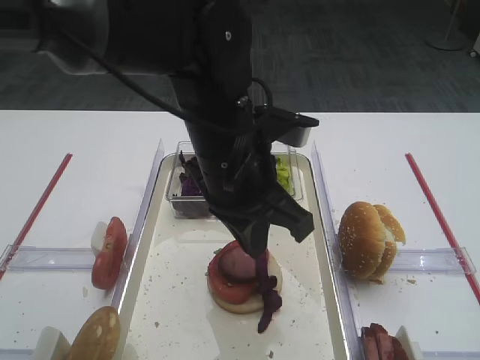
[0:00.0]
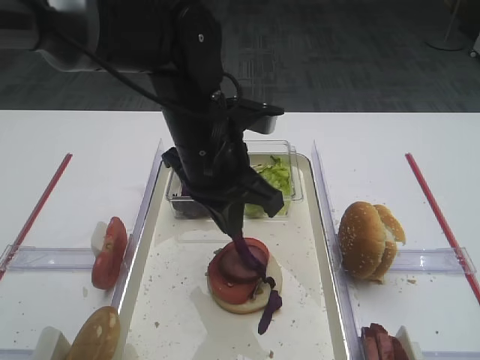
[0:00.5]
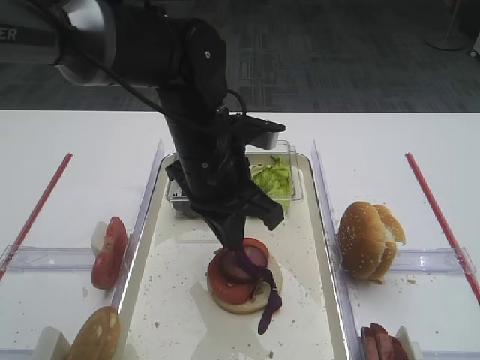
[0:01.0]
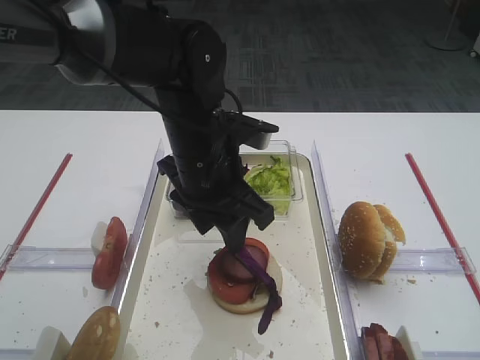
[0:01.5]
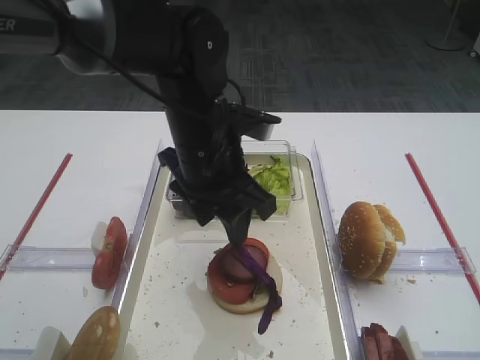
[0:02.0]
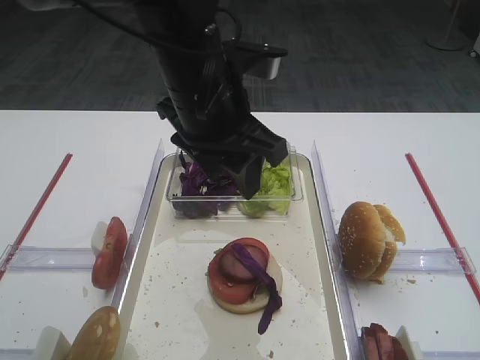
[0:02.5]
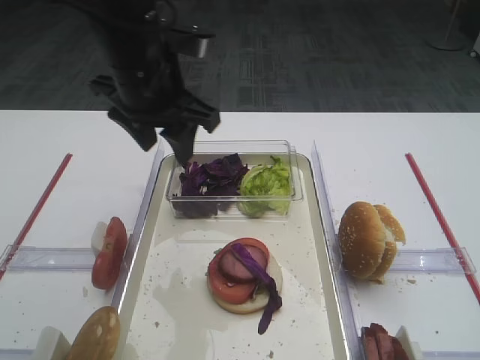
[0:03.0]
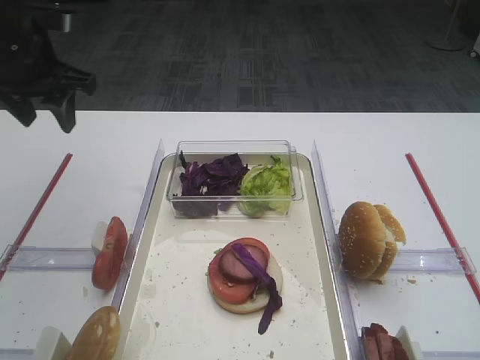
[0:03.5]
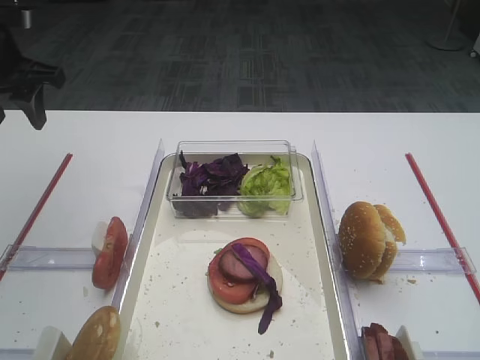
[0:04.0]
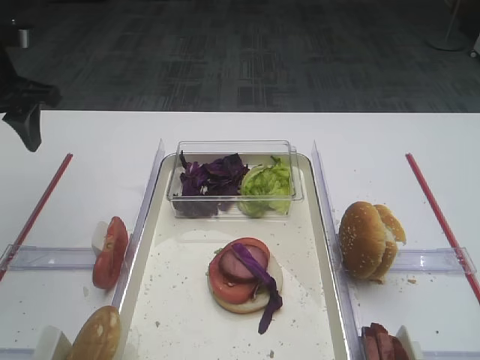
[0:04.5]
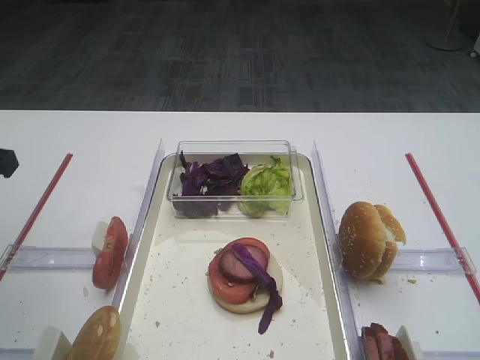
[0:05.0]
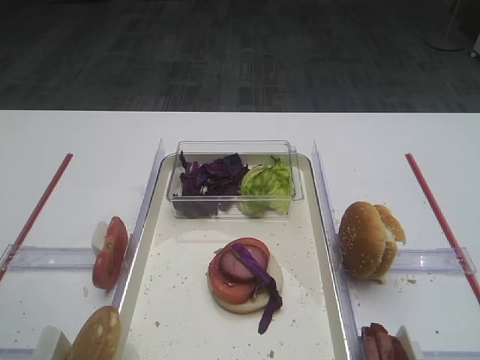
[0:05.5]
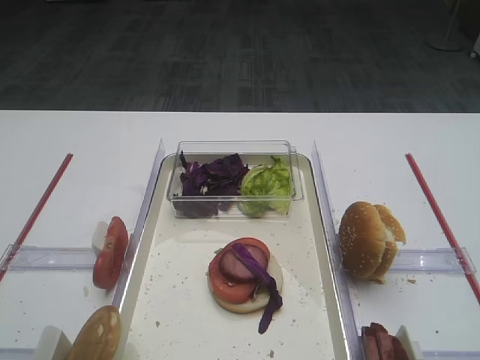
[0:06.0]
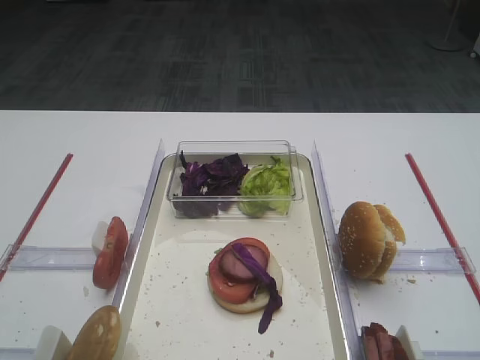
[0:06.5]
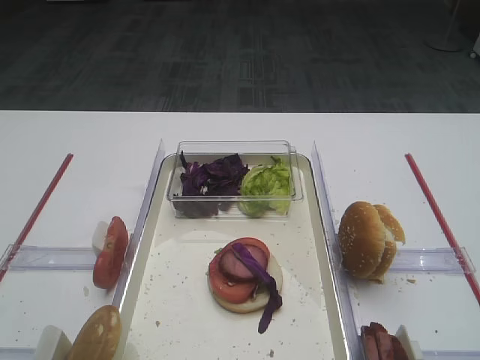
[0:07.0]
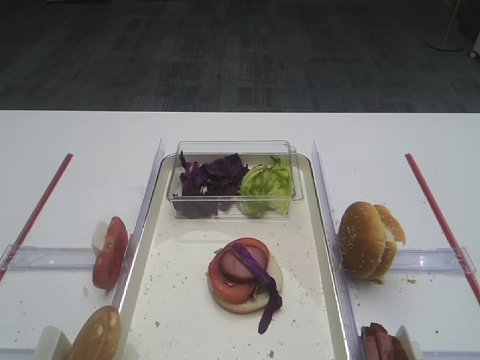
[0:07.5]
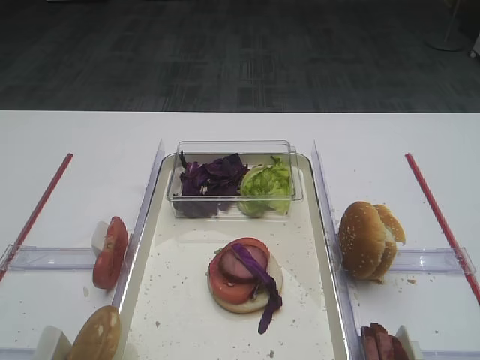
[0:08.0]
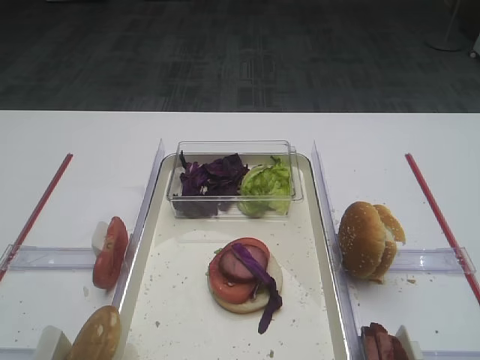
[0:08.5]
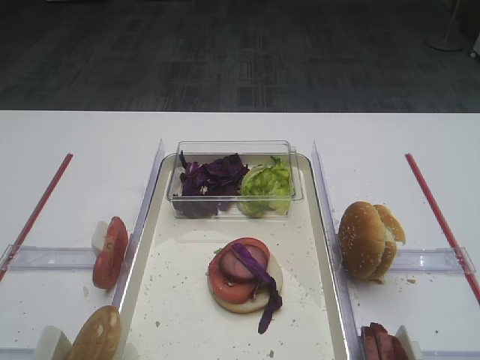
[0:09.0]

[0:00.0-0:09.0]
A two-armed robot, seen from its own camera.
Step, 0:00.0 to 0:02.0: Place the purple cabbage on the cutlet with the left gripper.
0:00.0 to 0:02.0: The left gripper shifts by roughly 5 cm, and opens up.
0:02.0 to 0:04.5: The left gripper moves to the left, about 25 cm.
0:04.5 to 0:07.0: The left gripper moves backward, approximately 40 cm.
0:07.0 to 0:09.0: The two grippers keep their place.

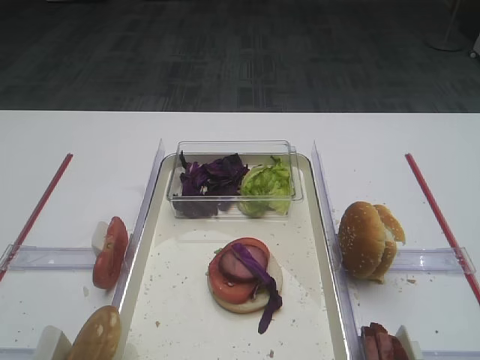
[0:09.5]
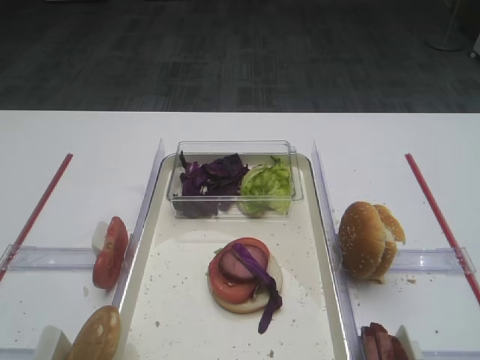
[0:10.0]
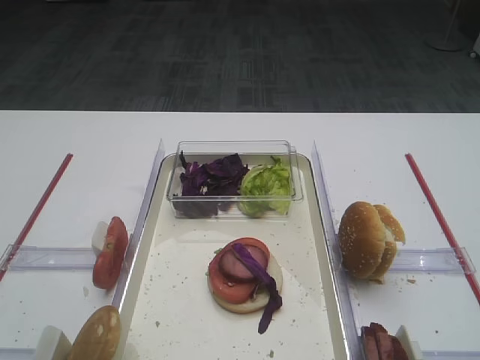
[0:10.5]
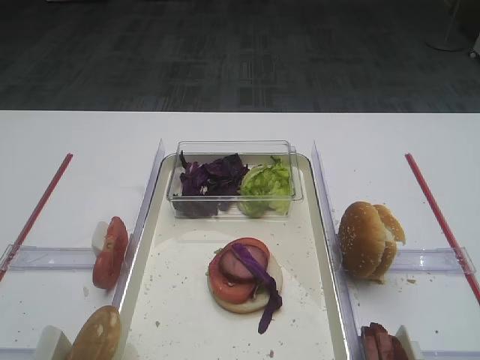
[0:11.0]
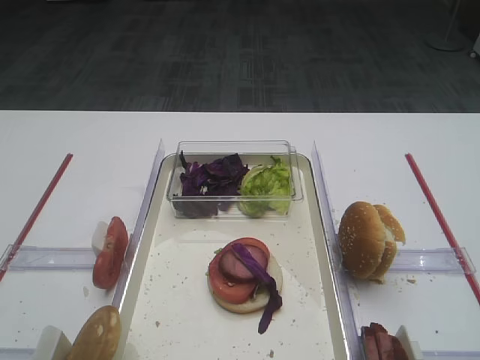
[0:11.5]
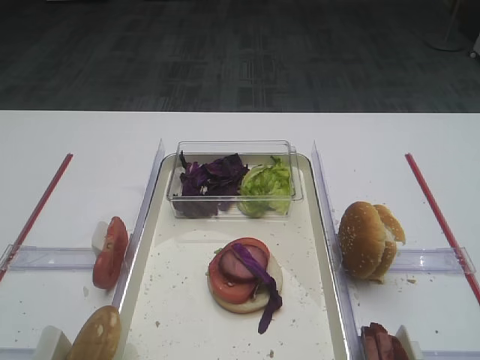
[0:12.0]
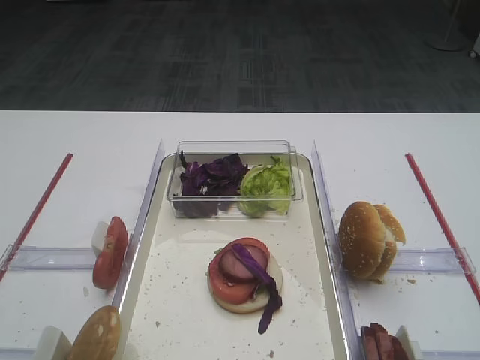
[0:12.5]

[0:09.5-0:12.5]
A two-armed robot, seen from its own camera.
0:09.5 to 0:12.5: The two grippers keep their place.

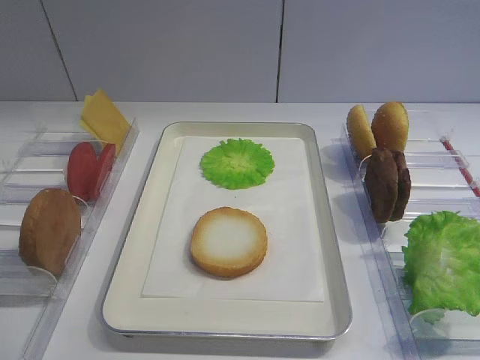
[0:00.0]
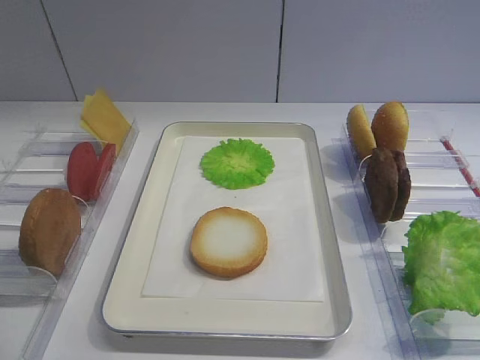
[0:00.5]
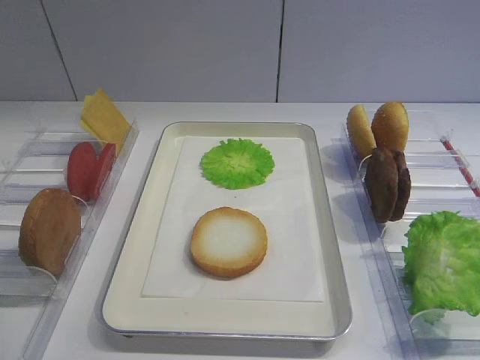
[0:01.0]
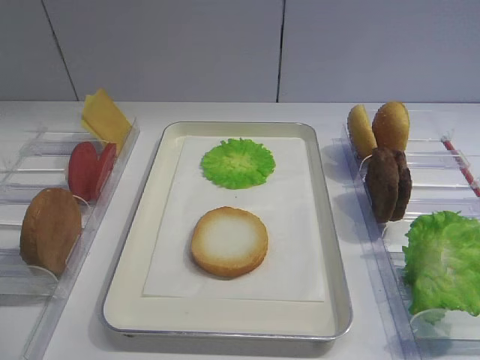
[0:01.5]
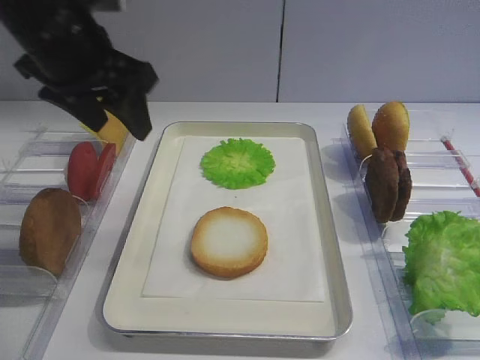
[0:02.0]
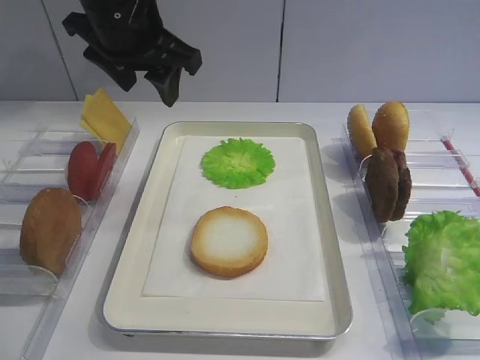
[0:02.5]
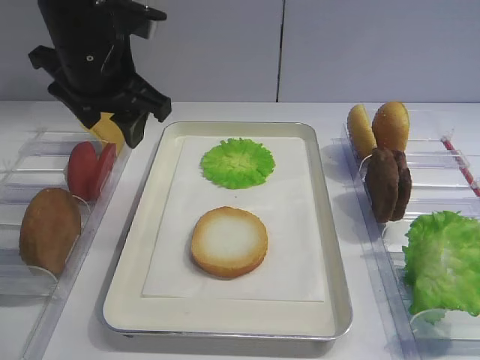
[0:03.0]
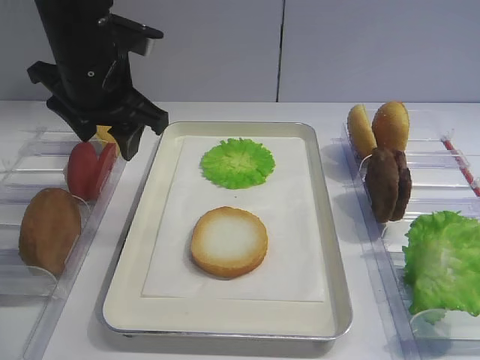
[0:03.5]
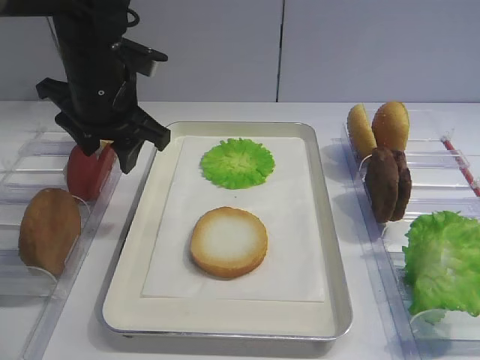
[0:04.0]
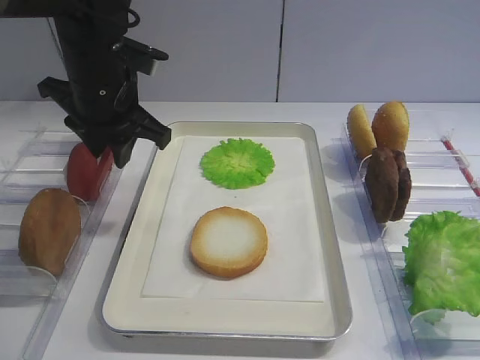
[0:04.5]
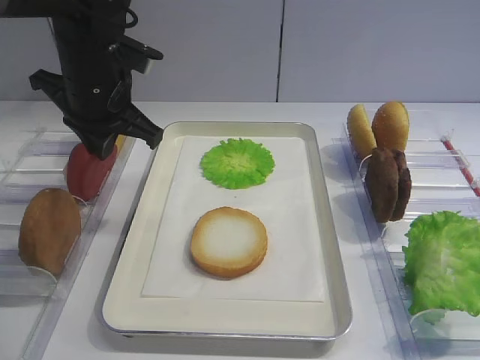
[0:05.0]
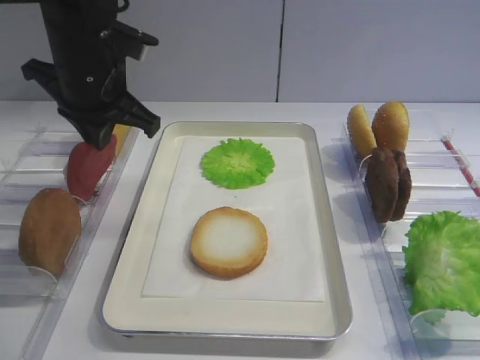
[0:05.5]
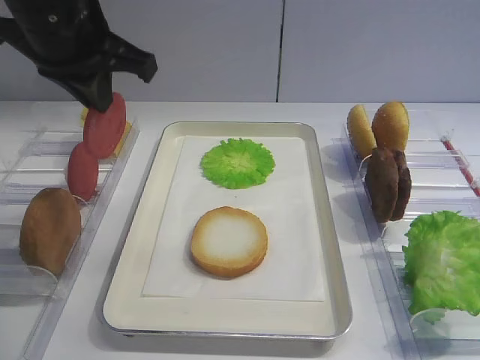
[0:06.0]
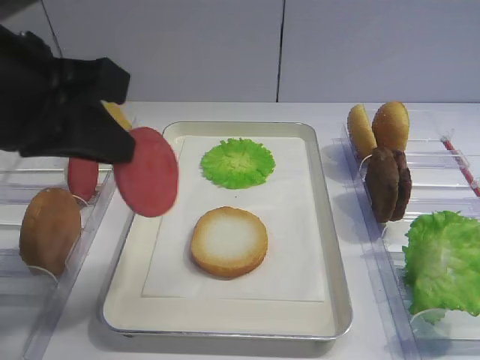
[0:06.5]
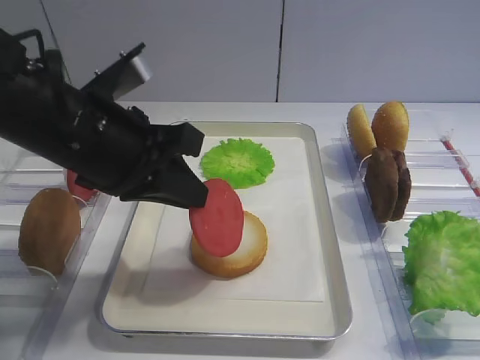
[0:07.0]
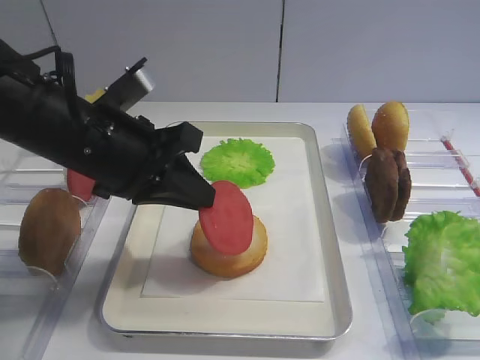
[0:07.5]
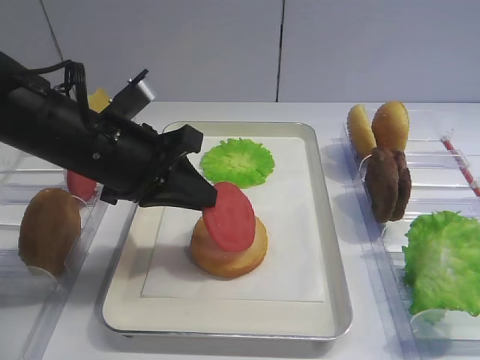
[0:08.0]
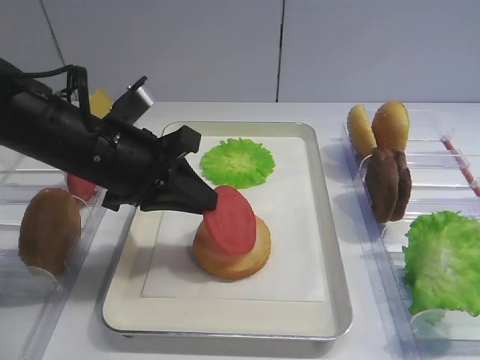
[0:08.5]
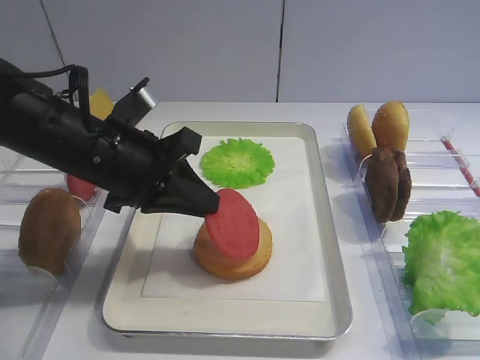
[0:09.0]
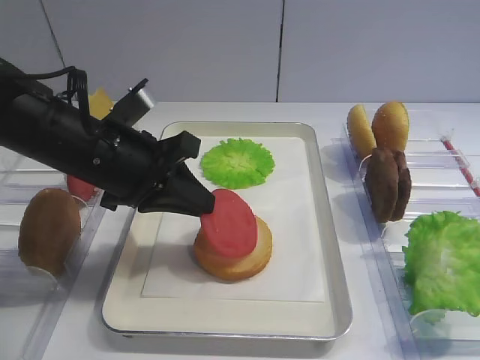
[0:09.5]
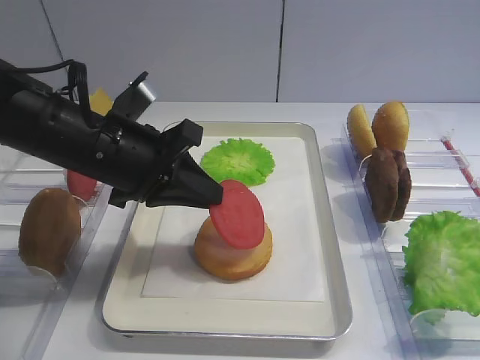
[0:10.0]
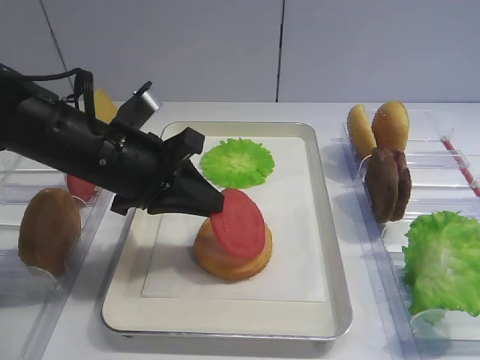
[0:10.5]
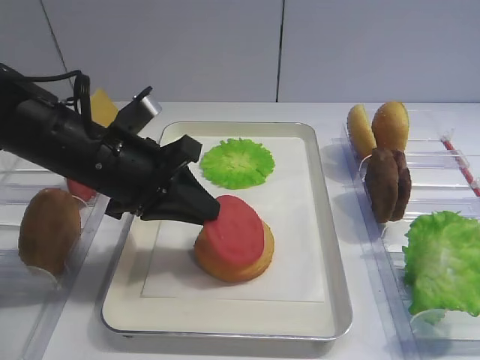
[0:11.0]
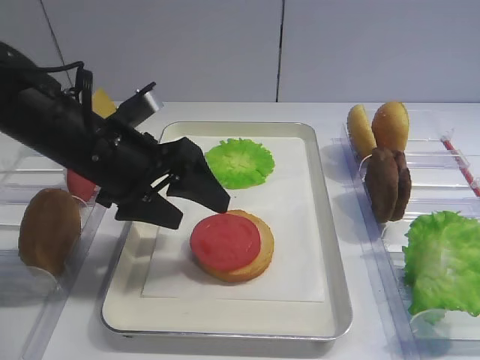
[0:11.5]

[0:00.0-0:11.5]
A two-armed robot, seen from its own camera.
Step, 0:00.0 to 0:05.5: Pick up the tomato slice with the left gripper.
0:02.0 to 0:04.0: The left gripper shifts about 5 cm downward.
0:04.0 to 0:06.0: The left gripper shifts some 10 cm upward, and closes up.
0:06.0 to 0:07.5: The left gripper heads downward and backward, covering approximately 10 cm.
0:07.5 to 0:09.5: The grippers stay close to where they were, moving slightly.
0:09.5 to 0:11.5: The left gripper opens up.

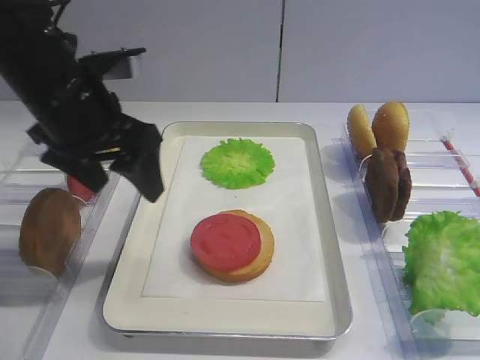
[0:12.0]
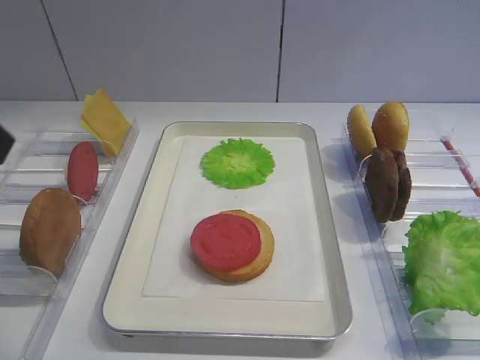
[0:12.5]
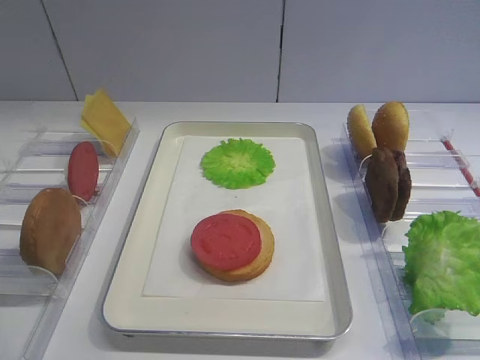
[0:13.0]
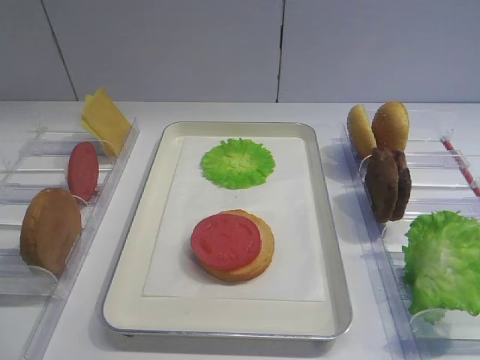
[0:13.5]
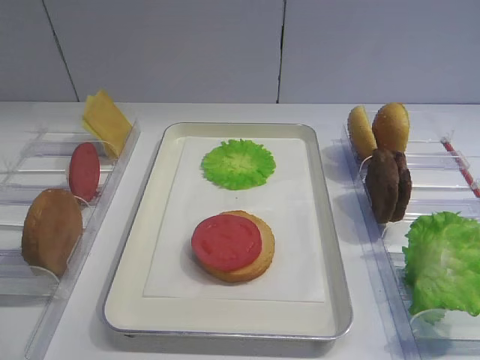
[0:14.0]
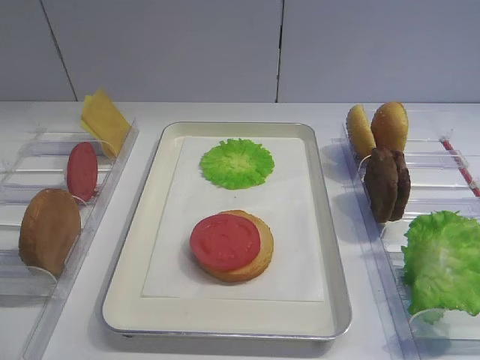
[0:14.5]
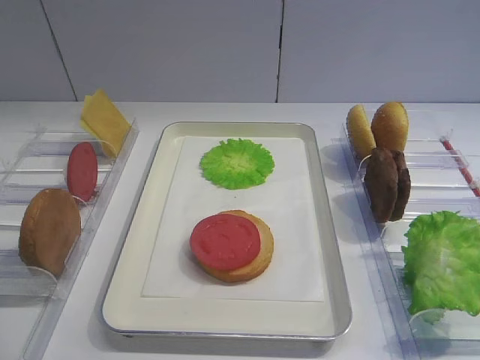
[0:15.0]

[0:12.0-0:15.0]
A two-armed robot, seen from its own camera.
0:12.0 to 0:13.5: The left gripper travels backward and to the left by some 30 cm.
